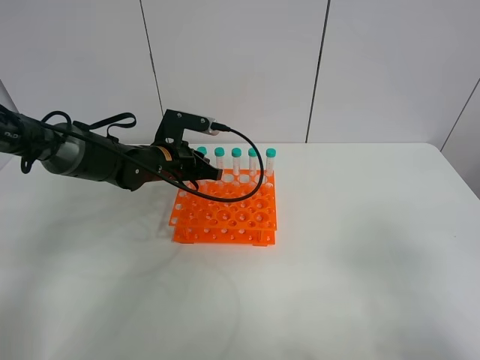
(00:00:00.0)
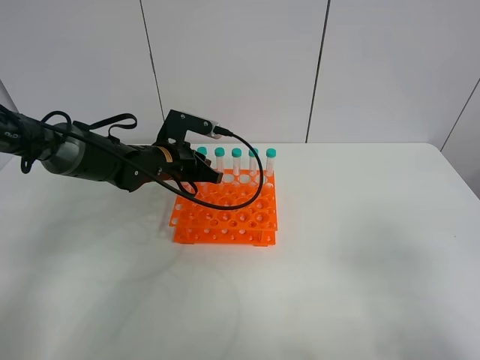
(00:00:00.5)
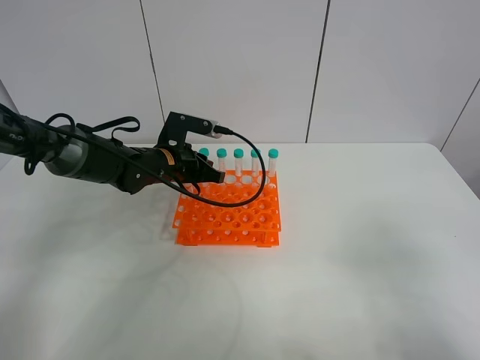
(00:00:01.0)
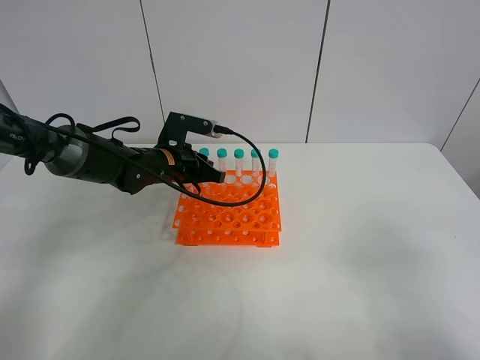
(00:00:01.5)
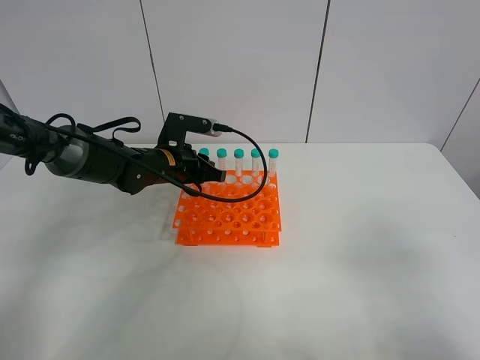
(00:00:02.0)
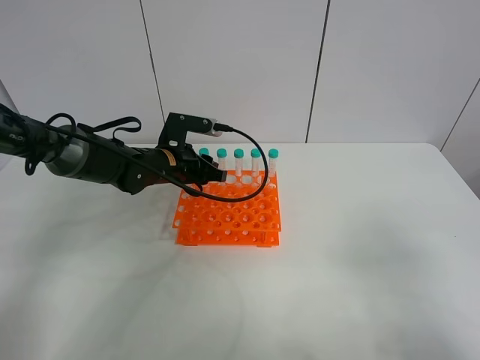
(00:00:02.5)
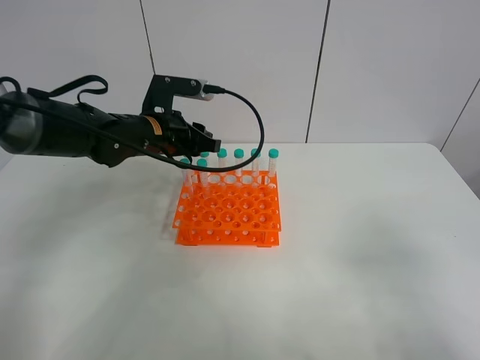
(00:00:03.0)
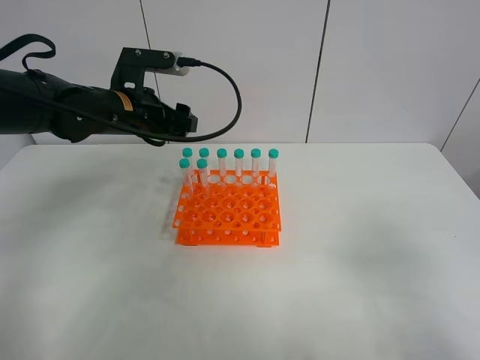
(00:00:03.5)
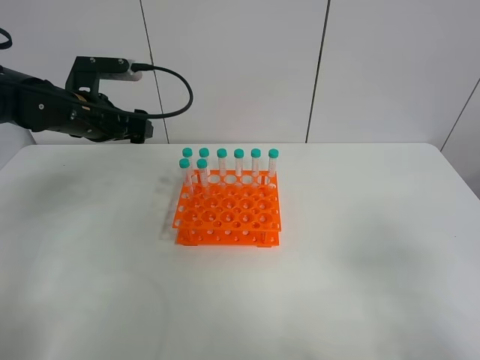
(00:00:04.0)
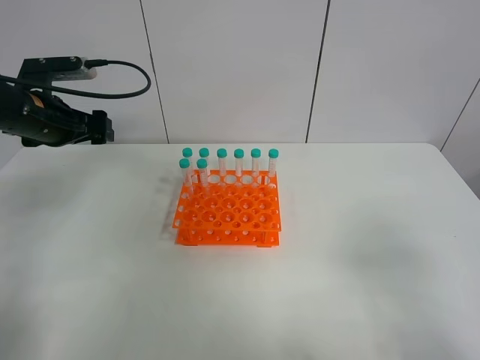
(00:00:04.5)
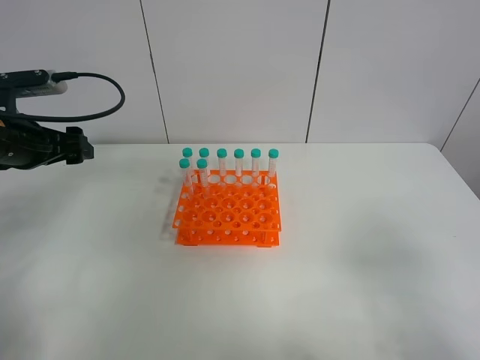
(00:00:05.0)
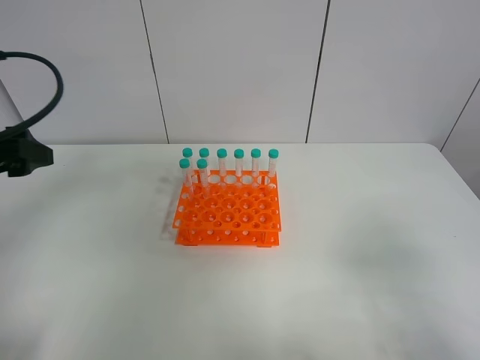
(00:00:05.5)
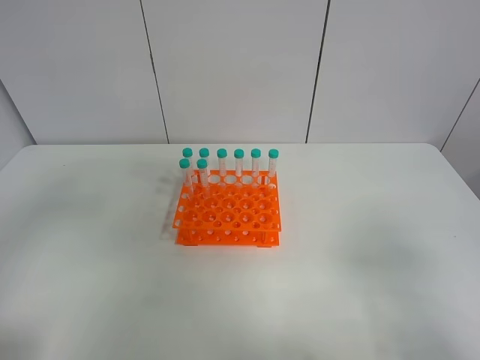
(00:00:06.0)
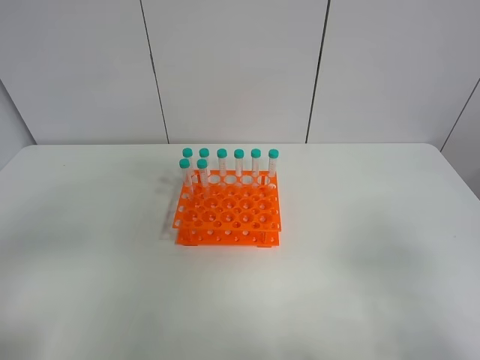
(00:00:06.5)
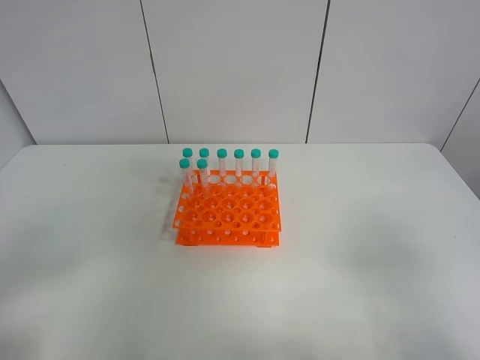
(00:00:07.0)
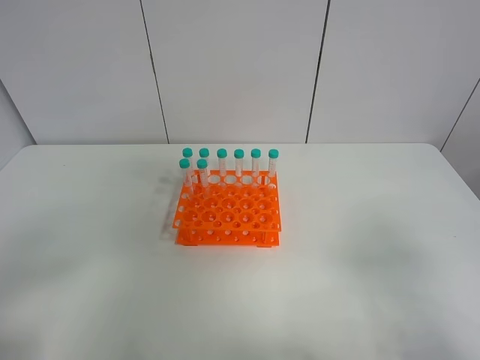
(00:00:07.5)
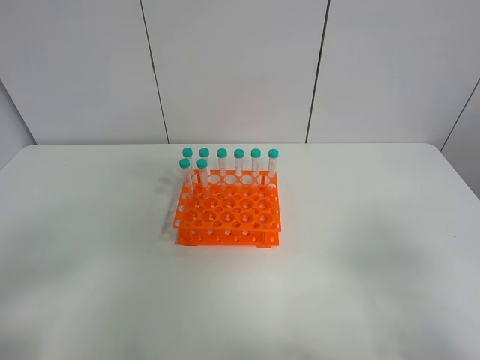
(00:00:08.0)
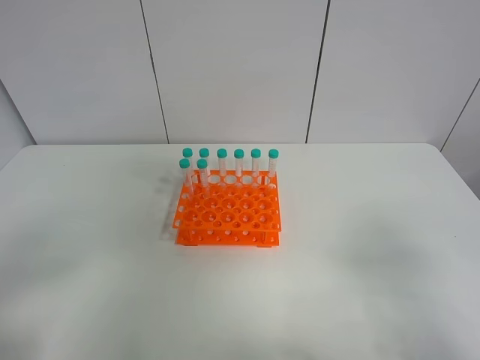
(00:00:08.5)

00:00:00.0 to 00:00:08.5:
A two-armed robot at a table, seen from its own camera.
Task of the whole recording: Put the test tube on the table back onto the test tube rack.
Step, 00:00:00.0 to 00:00:02.0: Place the test tube on the test tube rack with the left gripper.
00:00:00.0 to 00:00:02.0: Both grippers stay put.
00:00:02.0 to 00:00:04.0: The left gripper shifts approximately 15 cm to the left and upward, and opens up.
00:00:04.0 to 00:00:06.5: The left gripper moves backward, some 35 cm.
